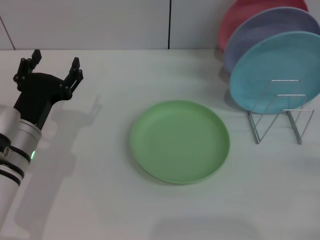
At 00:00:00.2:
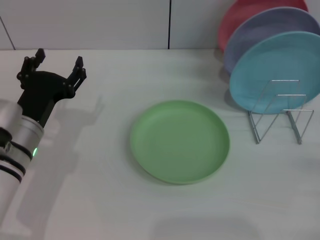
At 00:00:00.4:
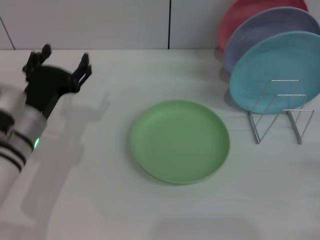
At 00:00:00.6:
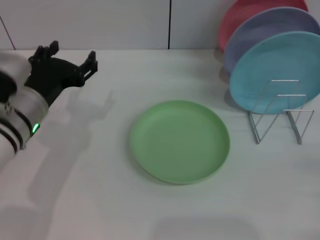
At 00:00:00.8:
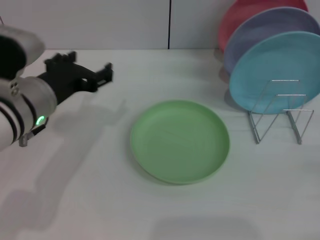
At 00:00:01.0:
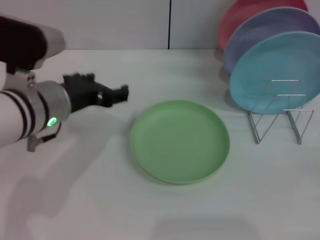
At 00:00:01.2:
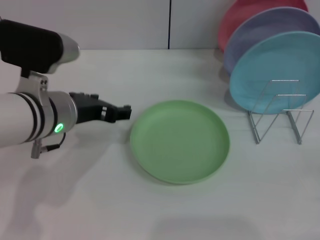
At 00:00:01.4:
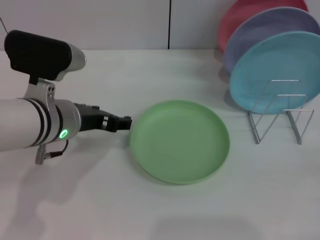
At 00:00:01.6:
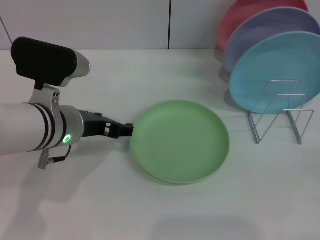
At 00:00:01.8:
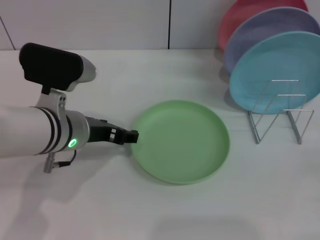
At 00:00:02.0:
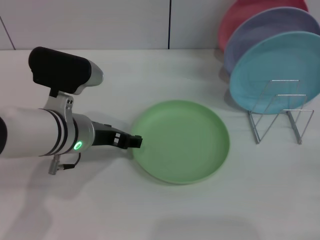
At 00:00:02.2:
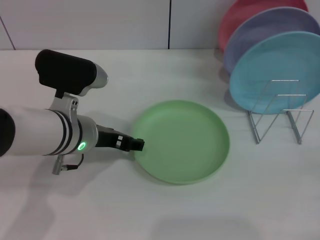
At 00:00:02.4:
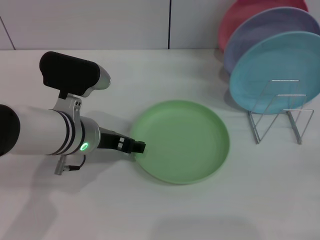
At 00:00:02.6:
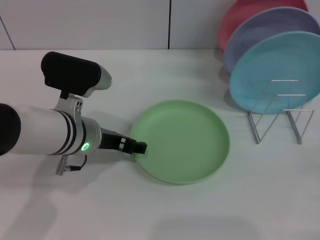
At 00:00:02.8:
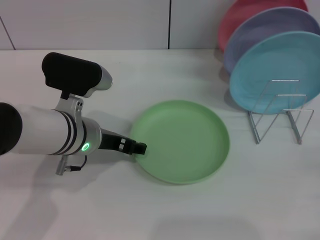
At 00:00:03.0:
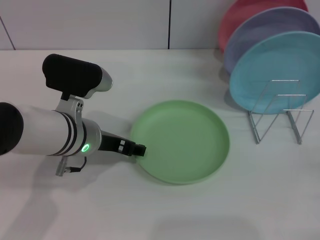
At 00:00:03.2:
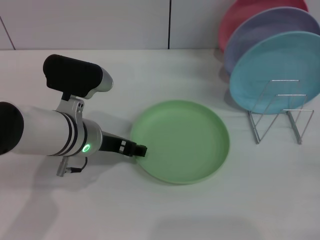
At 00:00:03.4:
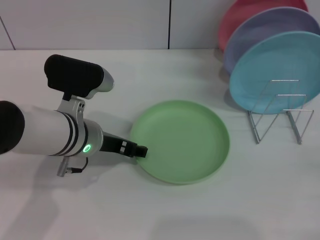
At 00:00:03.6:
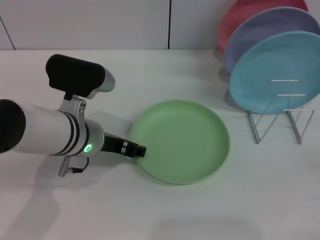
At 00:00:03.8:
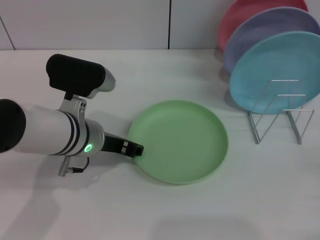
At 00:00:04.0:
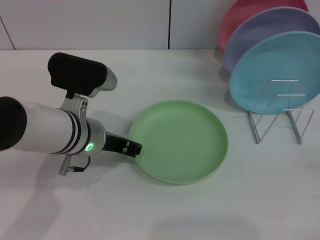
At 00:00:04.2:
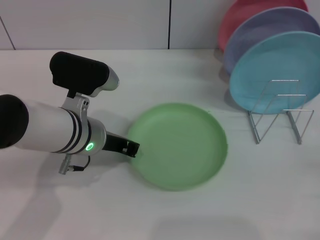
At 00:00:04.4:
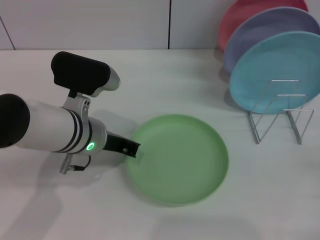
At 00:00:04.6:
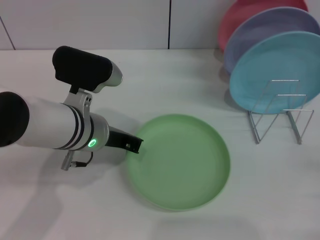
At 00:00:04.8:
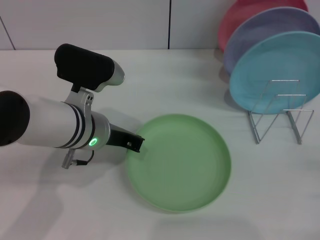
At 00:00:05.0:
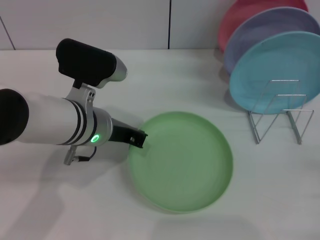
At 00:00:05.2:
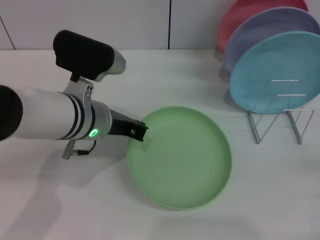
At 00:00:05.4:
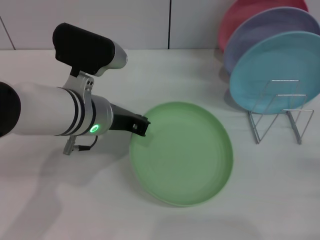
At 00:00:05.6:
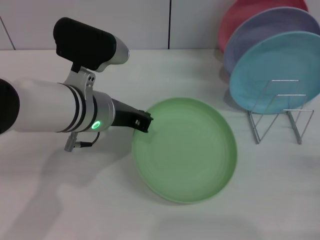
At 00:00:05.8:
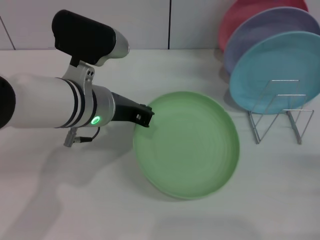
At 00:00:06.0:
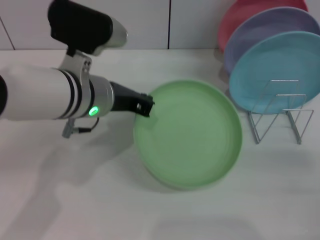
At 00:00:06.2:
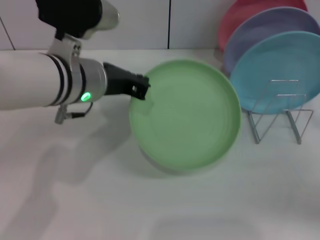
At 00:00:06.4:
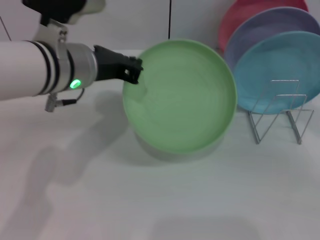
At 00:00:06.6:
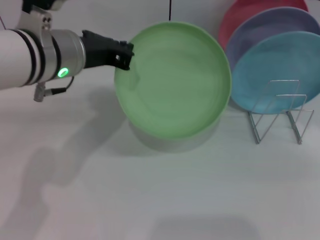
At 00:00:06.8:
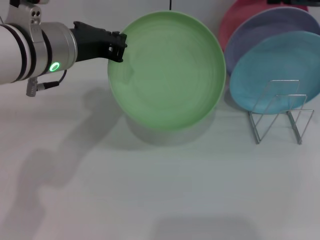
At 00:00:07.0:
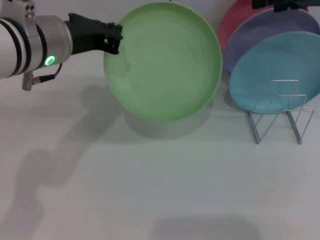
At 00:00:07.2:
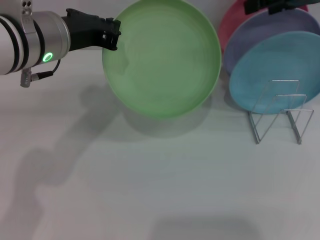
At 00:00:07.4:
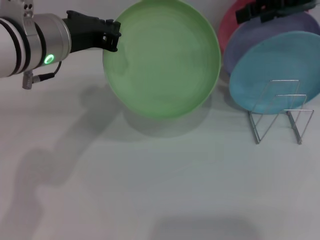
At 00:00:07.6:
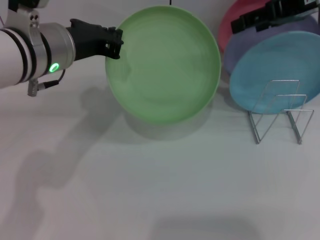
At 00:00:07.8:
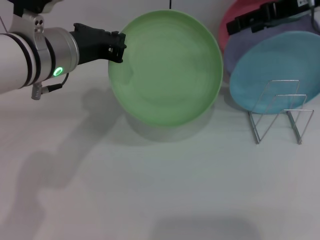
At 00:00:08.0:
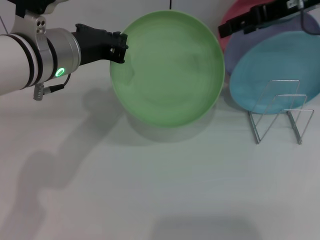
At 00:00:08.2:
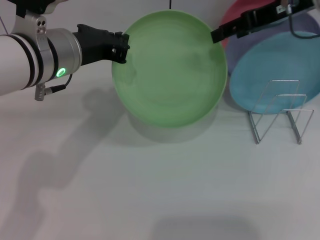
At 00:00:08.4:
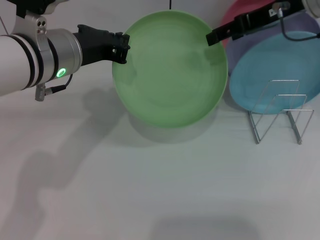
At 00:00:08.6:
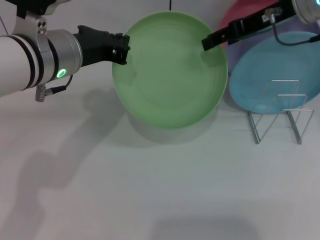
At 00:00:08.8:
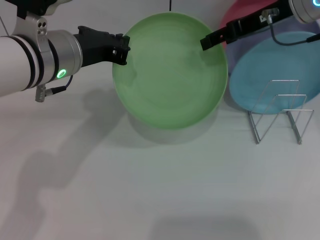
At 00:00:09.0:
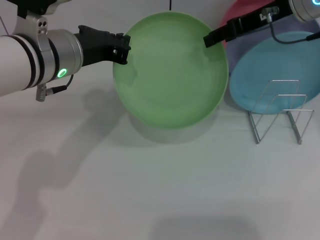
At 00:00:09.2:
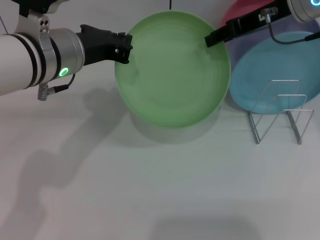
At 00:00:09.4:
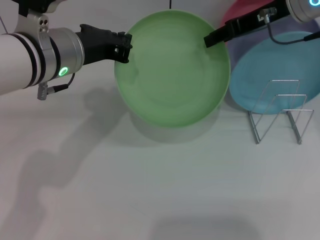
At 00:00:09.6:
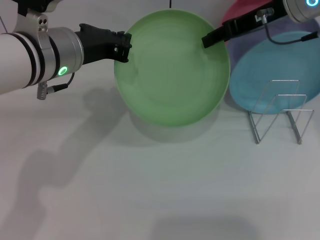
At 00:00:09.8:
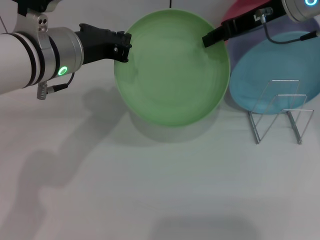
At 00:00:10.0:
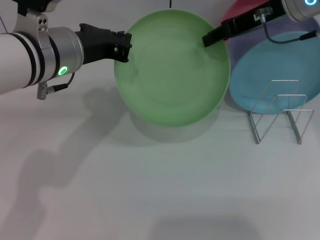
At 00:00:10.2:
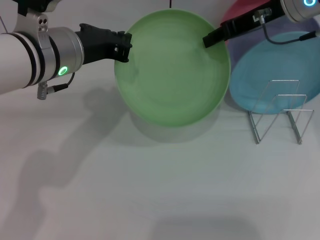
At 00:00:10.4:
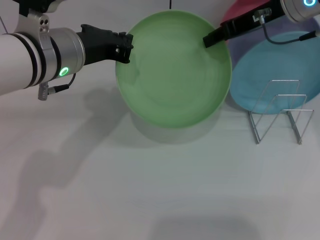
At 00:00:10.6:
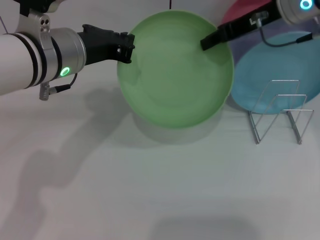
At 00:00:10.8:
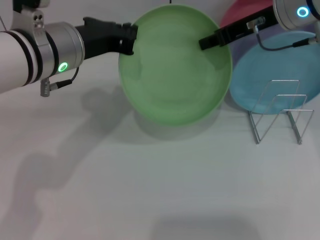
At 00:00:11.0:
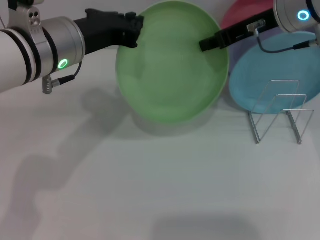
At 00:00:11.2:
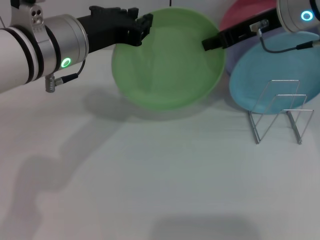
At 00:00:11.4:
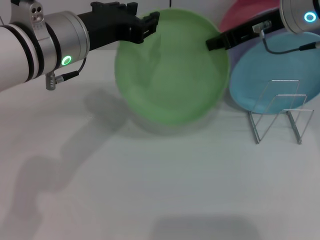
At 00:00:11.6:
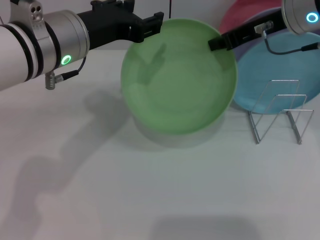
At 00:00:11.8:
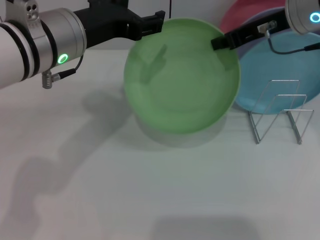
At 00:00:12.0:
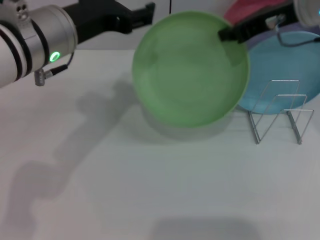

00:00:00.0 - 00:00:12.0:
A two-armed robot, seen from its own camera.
Task of the whole recording: Grip the plate with one hand, pass it to the other, then set it on the shelf.
Step, 00:00:00.0 - 00:00:06.0: Pick up the plate with the left gripper.
Step, 00:00:06.4 - 00:00:11.6: Pass the plate from the left gripper to the right gripper.
00:00:00.0 - 00:00:01.6: The left gripper travels upward and to the right by approximately 10 cm.
00:00:01.6 - 00:00:03.0: The grippers stay close to where they were, moving slightly.
00:00:03.0 - 00:00:04.4: The left gripper closes up.
00:00:04.4 - 00:00:06.0: The left gripper shifts some 5 cm upward. Meanwhile the right gripper shifts by some 5 cm.
00:00:06.0 - 00:00:07.6: The left gripper ends up about 5 cm from where it was. The right gripper goes approximately 30 cm forward, upward and to the left.
00:00:07.6 - 00:00:09.0: The right gripper changes place by approximately 5 cm.
00:00:09.0 - 00:00:10.4: The right gripper closes.
00:00:10.4 - 00:00:12.0: The left gripper opens its fingers. The right gripper closes.

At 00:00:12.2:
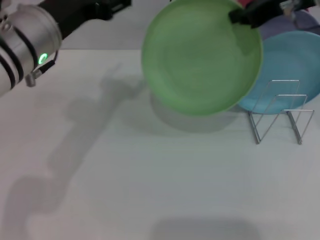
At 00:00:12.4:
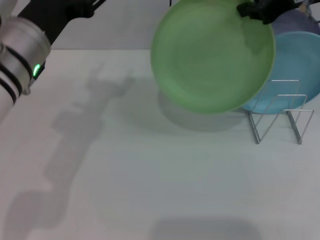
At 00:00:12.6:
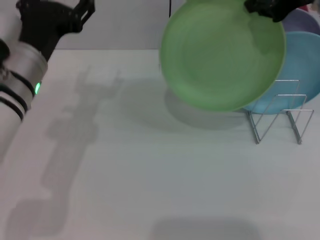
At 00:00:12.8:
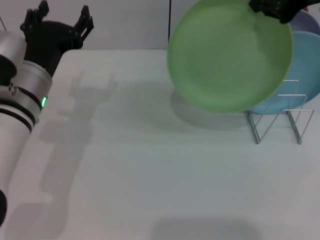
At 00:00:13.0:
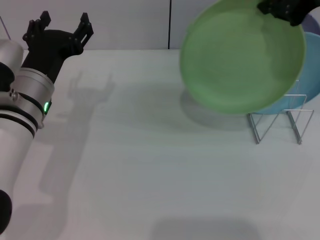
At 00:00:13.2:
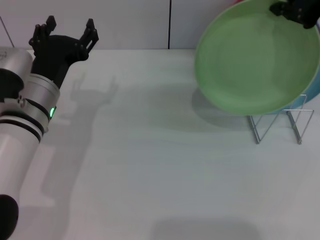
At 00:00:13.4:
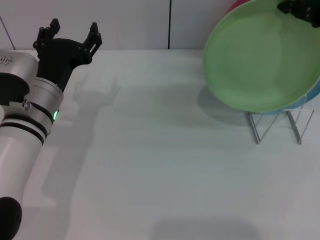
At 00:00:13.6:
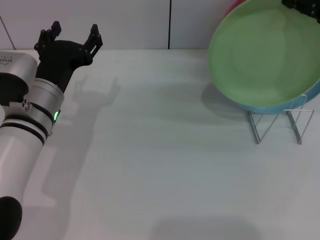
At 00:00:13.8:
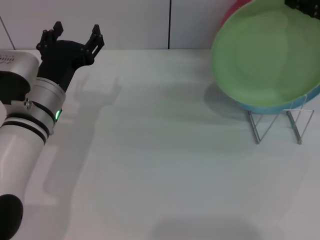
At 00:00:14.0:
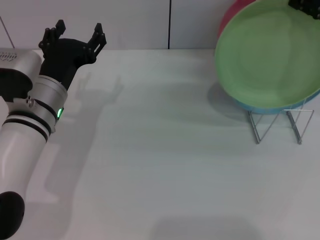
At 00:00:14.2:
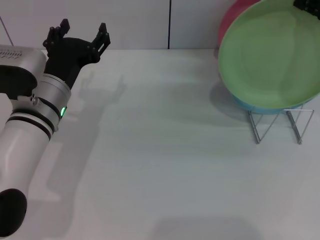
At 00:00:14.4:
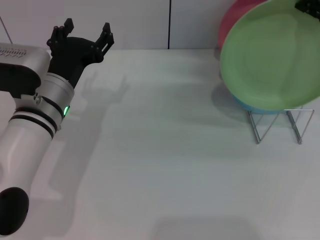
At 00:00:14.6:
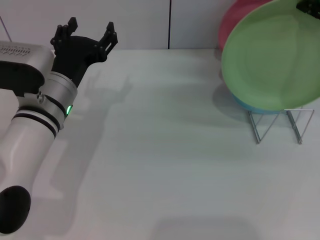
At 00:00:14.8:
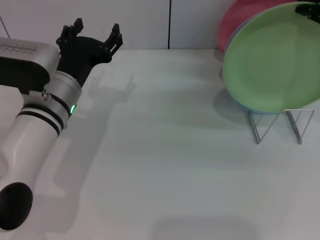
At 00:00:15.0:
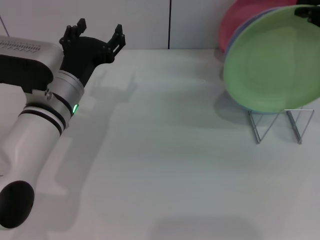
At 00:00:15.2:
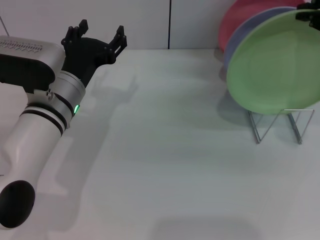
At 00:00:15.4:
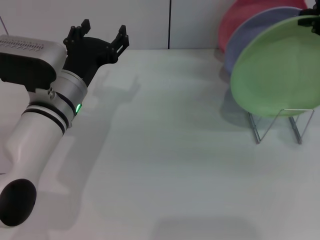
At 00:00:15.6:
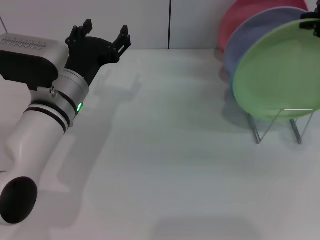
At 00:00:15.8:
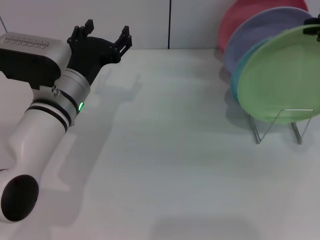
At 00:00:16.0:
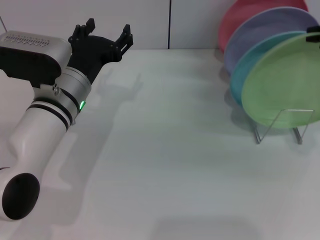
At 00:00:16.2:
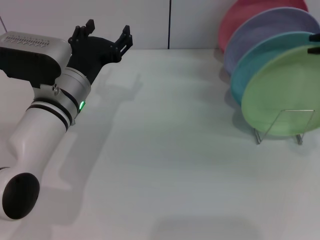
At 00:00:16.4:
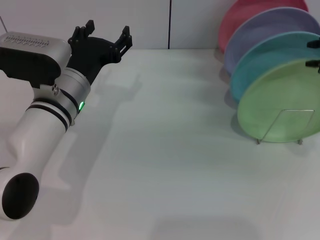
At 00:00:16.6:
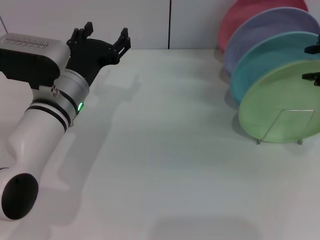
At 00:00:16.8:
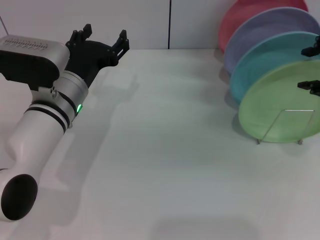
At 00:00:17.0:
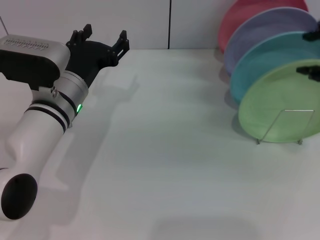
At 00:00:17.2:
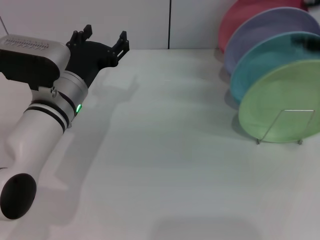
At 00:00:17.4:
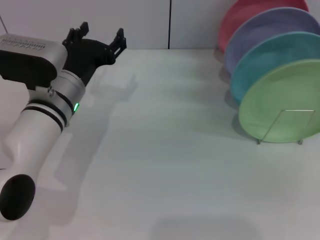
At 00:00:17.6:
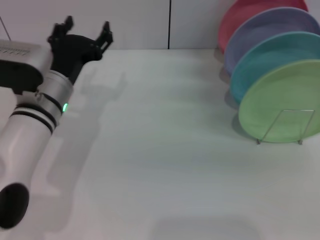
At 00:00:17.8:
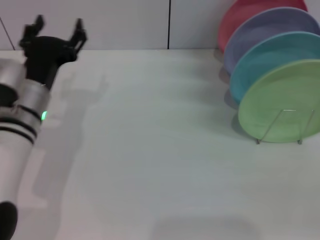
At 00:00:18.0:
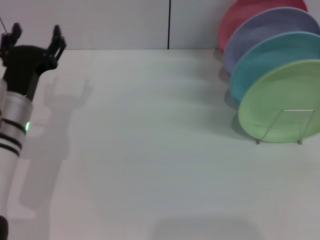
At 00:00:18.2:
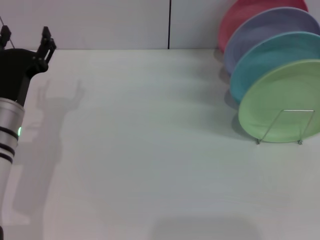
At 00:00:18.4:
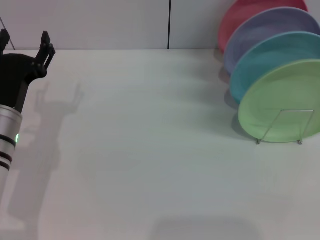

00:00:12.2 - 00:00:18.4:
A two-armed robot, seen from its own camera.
Task of the whole recording: Grip the plate with one hand, pass it to the other, then set it on the shelf.
Step, 00:00:12.2 - 00:00:16.8: Place the plate on the shelf with the right gripper.
00:00:12.2 - 00:00:13.8: The right gripper shifts by roughly 5 cm. The left gripper moves downward, approximately 10 cm.
00:00:13.8 - 00:00:15.4: The grippers move only a little.
00:00:15.4 - 00:00:16.8: The right gripper opens.
00:00:16.8 - 00:00:18.4: The left gripper moves to the left, roughly 10 cm; the right gripper travels backward, downward and to the right by approximately 35 cm, and opens up.
